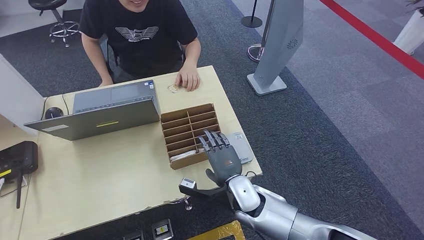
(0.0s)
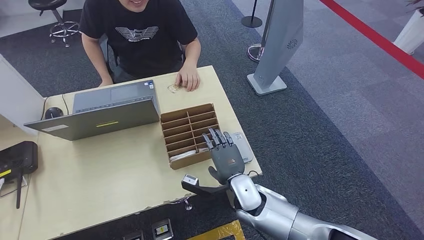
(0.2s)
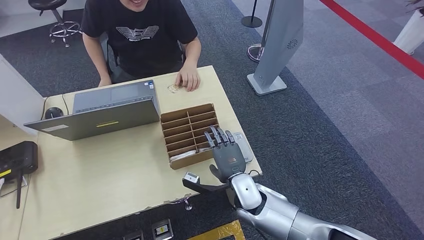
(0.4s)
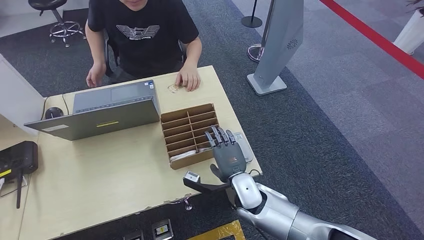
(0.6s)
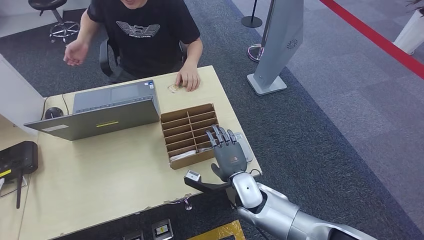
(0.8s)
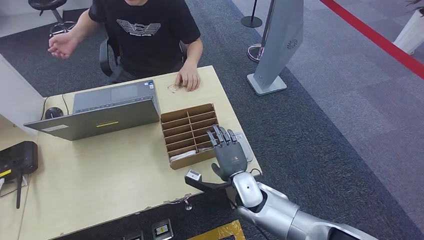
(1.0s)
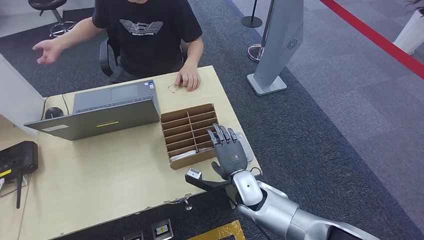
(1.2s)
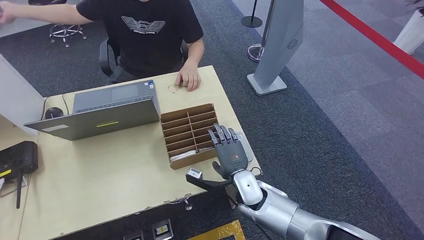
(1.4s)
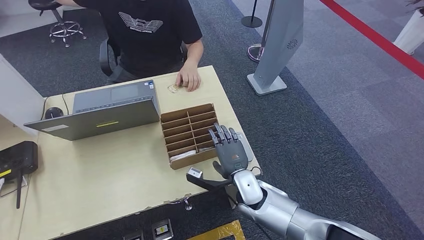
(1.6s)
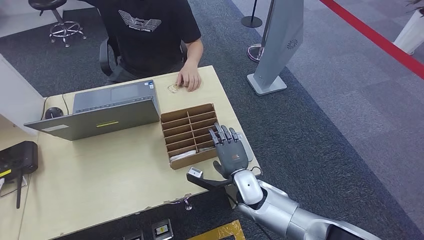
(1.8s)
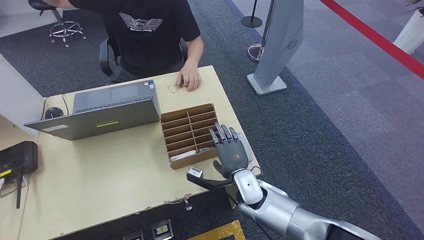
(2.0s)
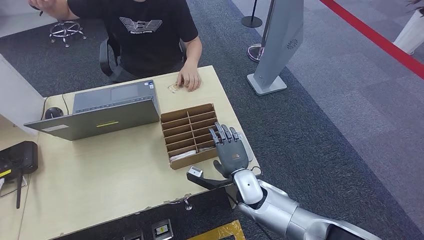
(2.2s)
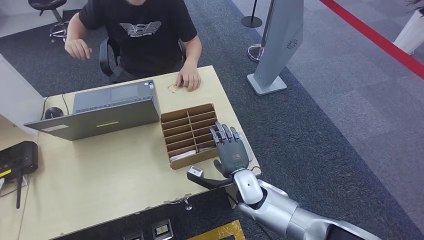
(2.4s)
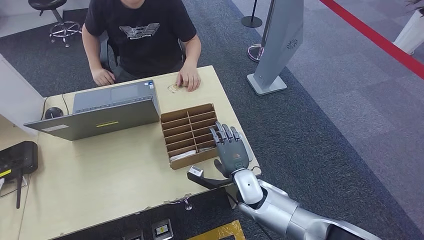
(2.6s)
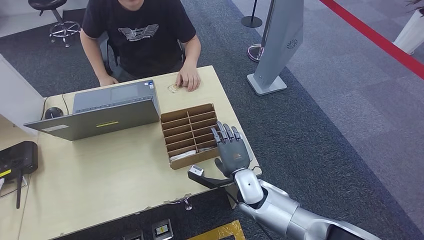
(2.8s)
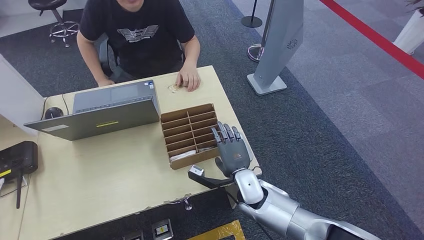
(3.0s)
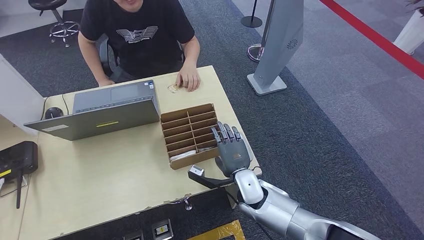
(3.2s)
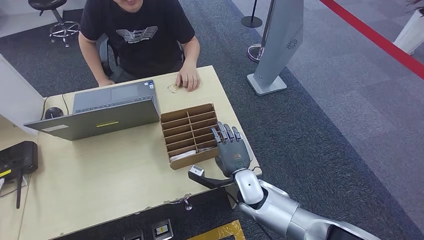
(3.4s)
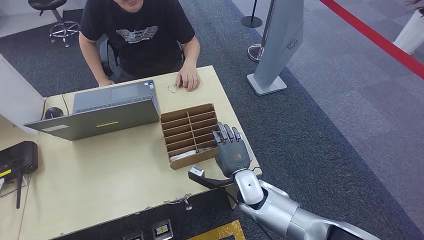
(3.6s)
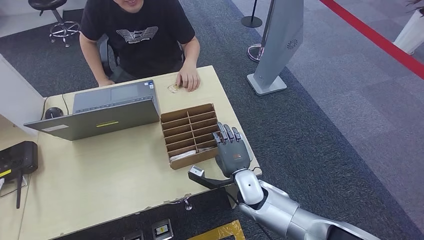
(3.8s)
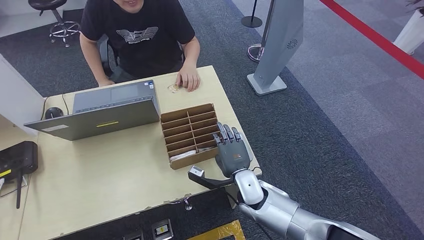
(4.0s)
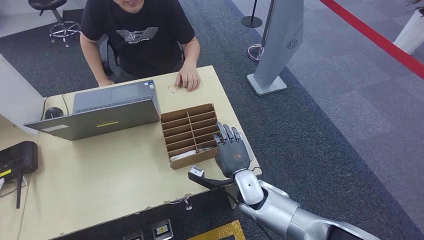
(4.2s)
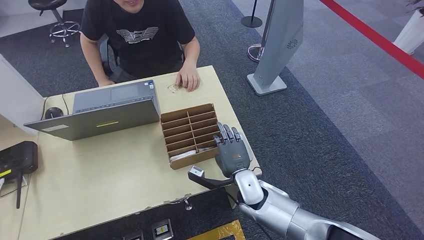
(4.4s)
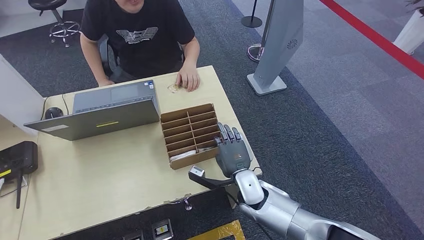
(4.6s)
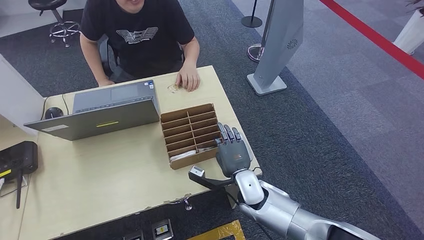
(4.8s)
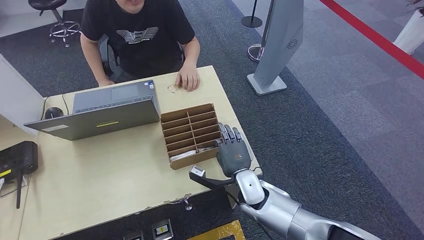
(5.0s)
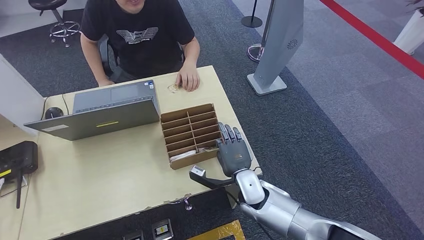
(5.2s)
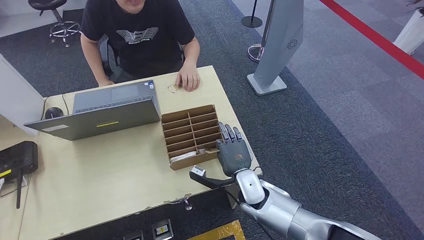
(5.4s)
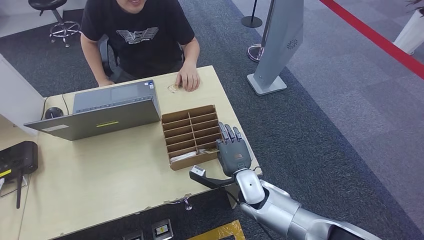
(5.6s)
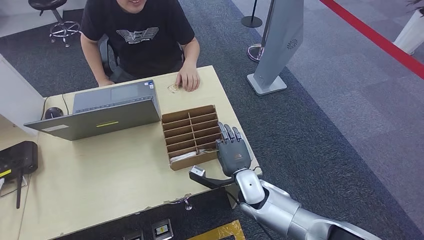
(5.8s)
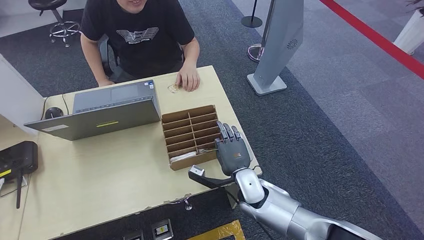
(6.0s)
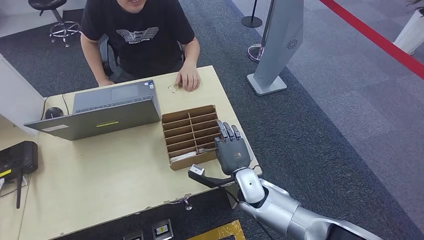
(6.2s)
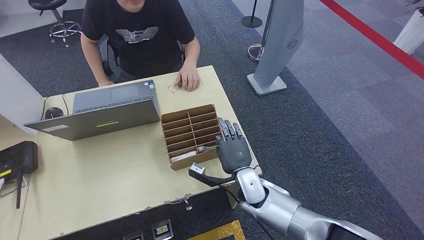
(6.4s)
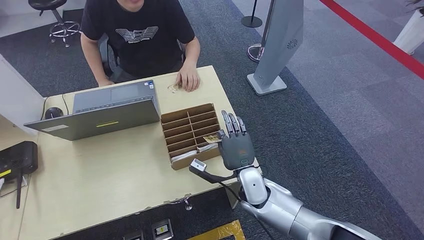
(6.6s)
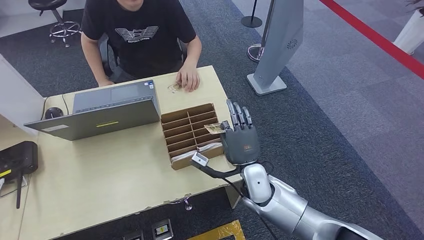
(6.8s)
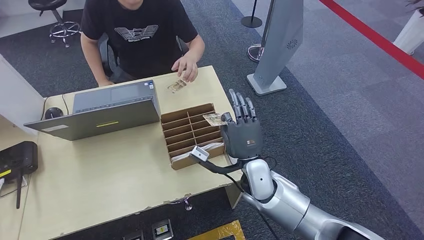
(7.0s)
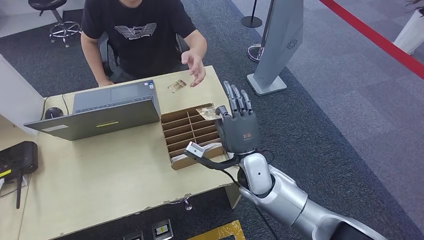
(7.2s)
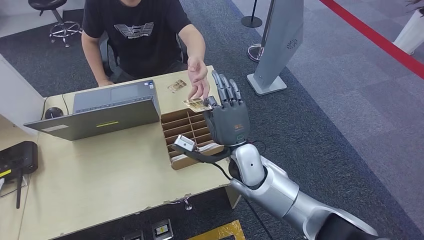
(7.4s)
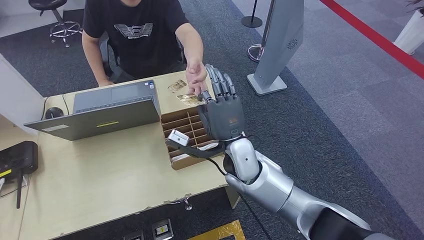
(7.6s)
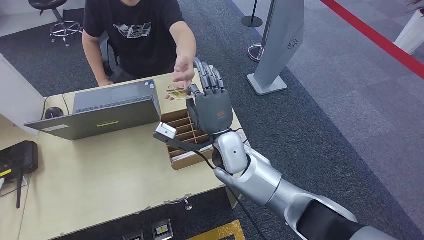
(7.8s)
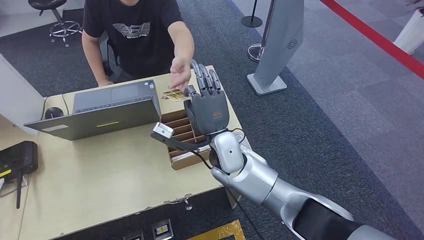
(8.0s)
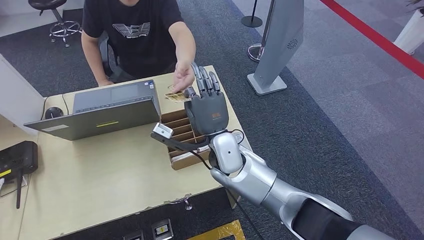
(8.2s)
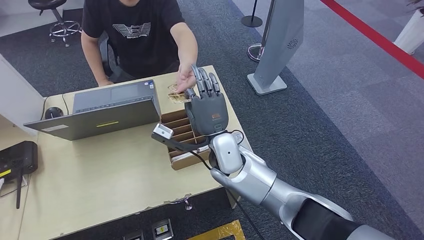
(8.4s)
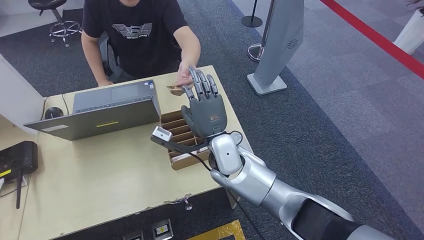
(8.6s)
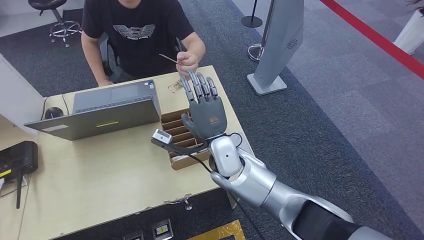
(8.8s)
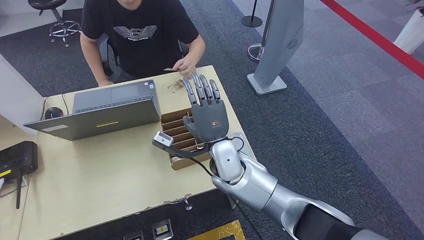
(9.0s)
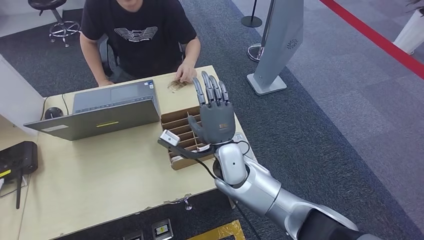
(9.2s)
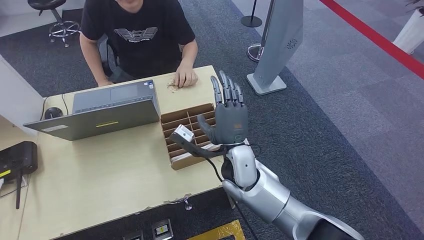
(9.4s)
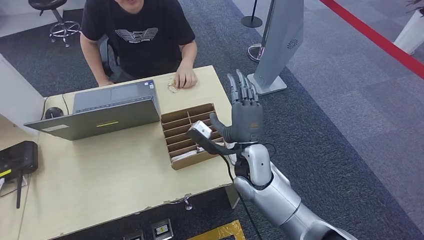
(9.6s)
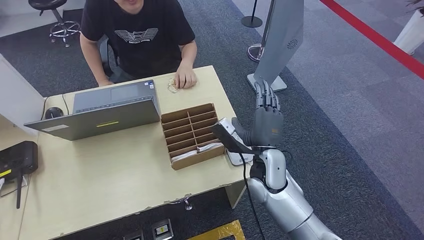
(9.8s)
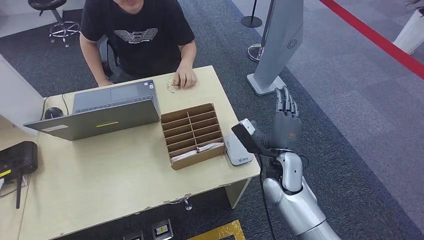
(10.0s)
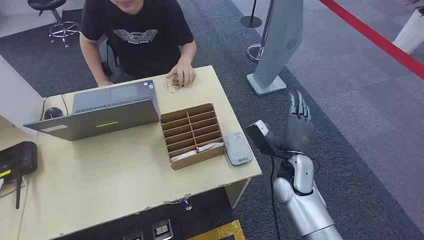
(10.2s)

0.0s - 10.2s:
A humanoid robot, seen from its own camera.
Step, 0.0s - 7.0s: Pick up the room key from the key card box.
Step, 7.2s - 10.0s: Hand the room key to the person.
0.0s - 1.4s: The hands move only a little.
1.4s - 5.8s: Neither hand changes place.
5.8s - 7.2s: The right hand goes approximately 10 cm upward.
7.2s - 8.8s: The right hand heads to the left and forward, covering approximately 10 cm.
8.8s - 10.2s: The right hand travels to the right and backward by approximately 20 cm.
